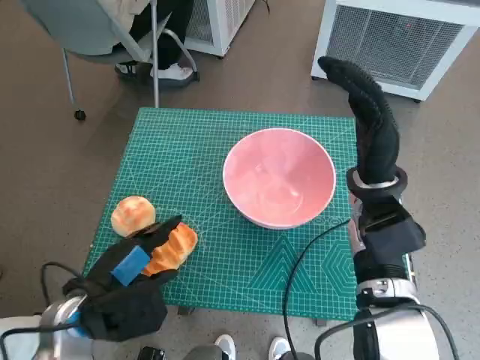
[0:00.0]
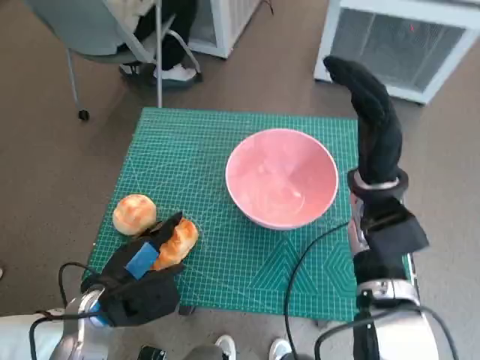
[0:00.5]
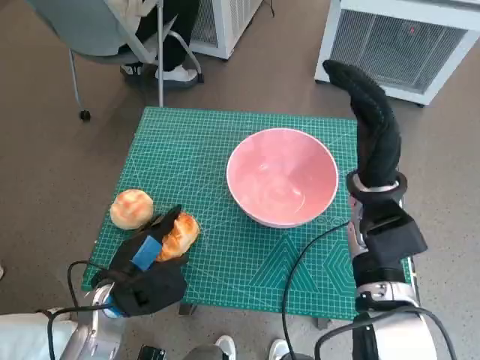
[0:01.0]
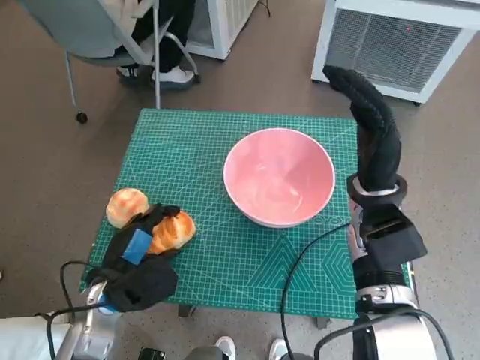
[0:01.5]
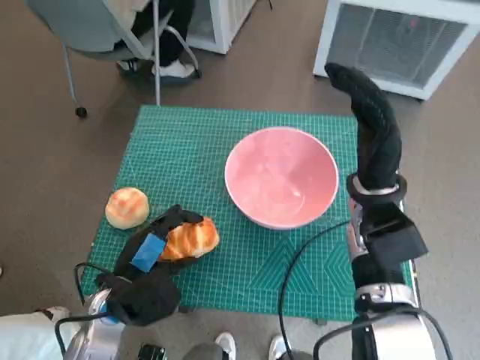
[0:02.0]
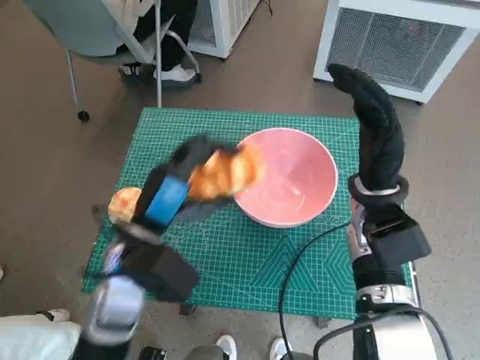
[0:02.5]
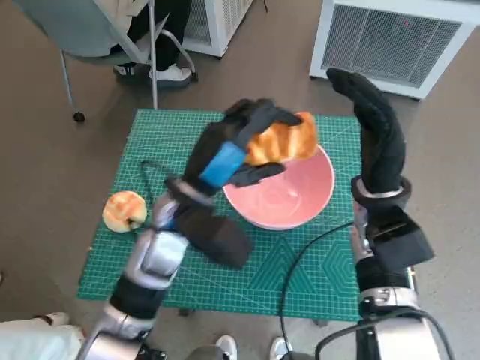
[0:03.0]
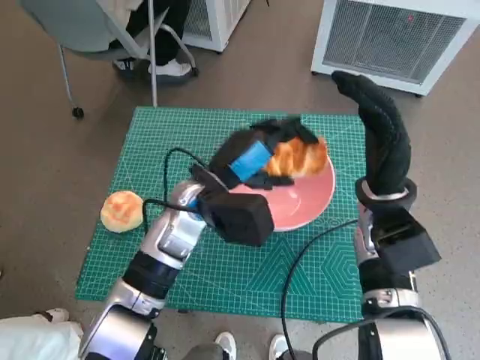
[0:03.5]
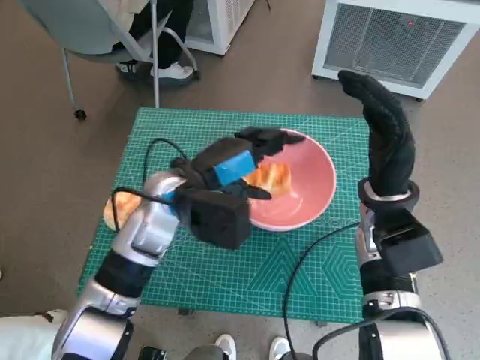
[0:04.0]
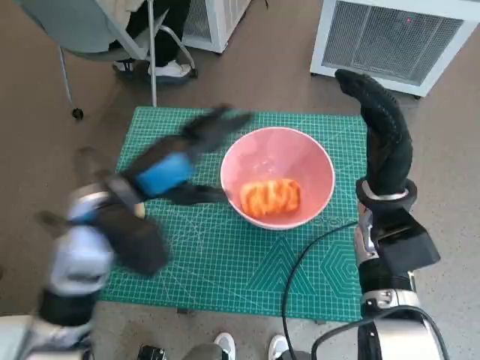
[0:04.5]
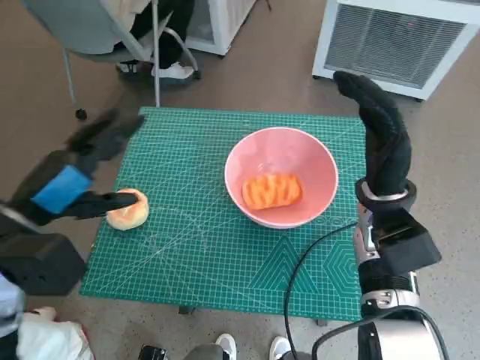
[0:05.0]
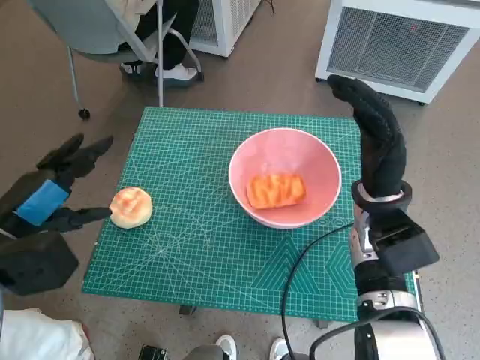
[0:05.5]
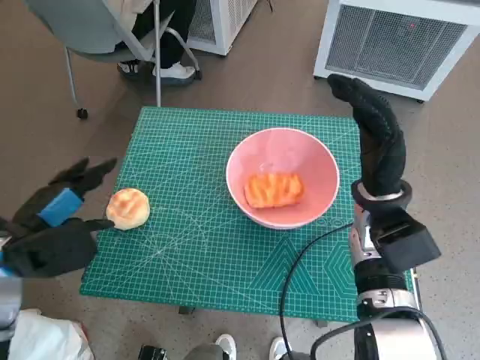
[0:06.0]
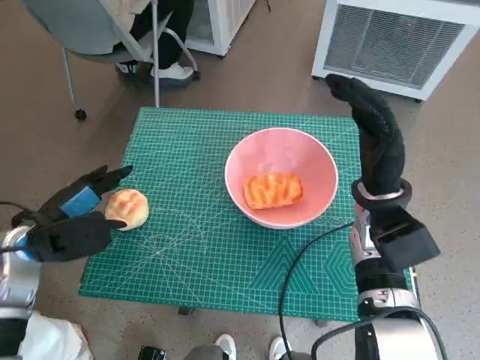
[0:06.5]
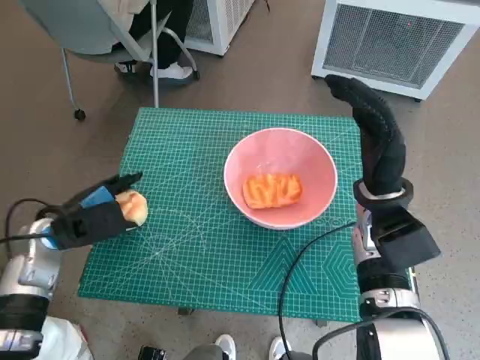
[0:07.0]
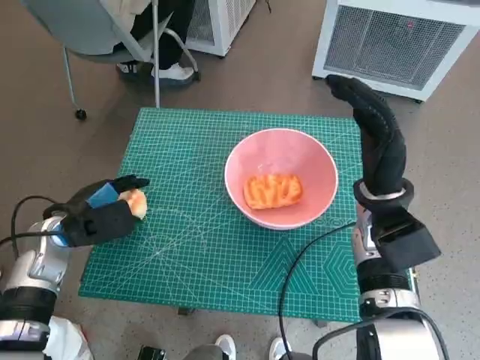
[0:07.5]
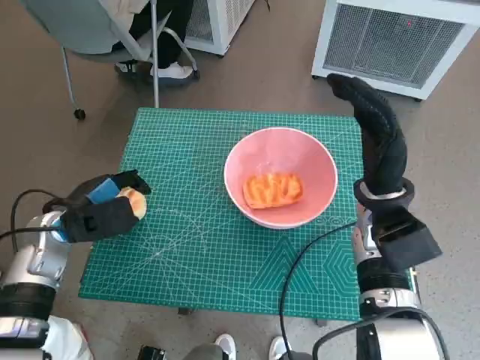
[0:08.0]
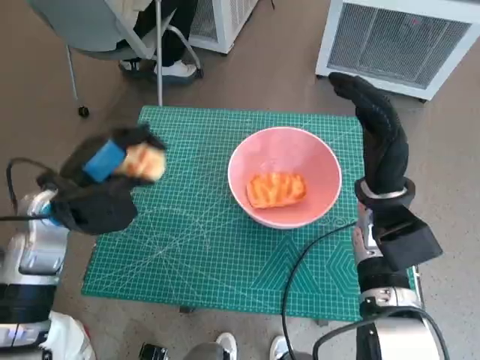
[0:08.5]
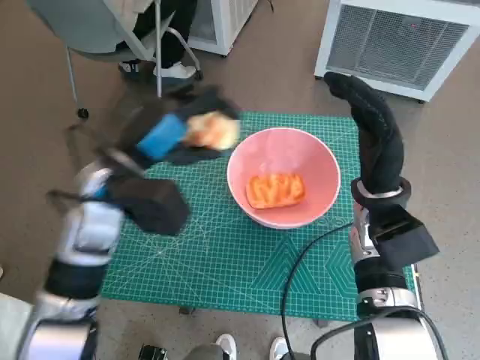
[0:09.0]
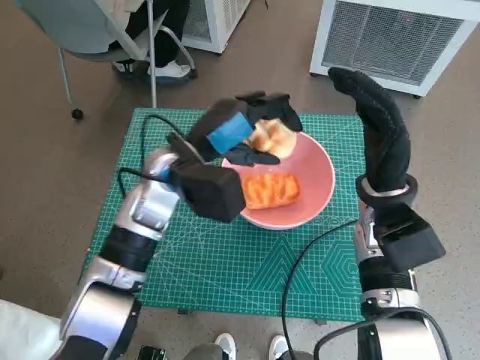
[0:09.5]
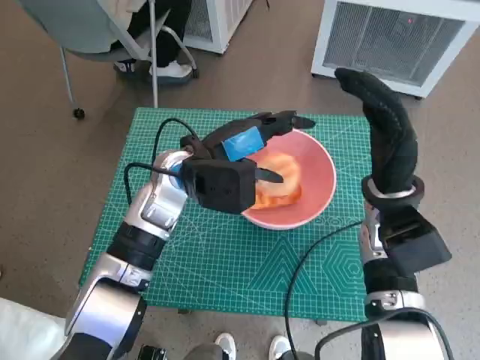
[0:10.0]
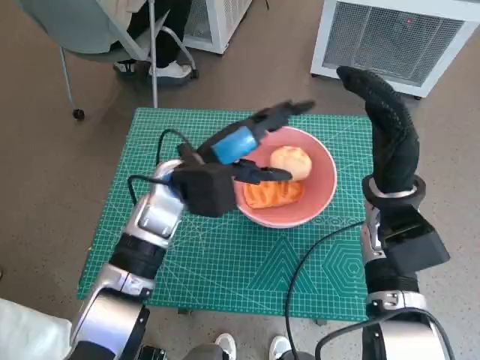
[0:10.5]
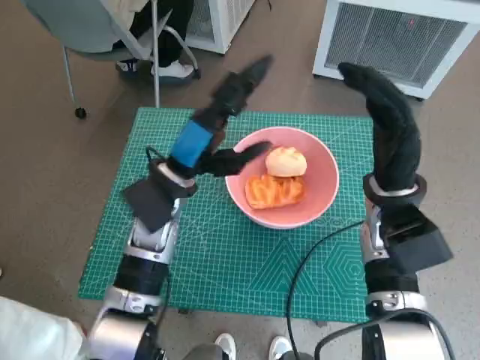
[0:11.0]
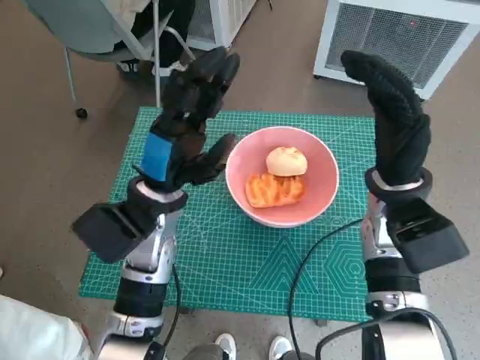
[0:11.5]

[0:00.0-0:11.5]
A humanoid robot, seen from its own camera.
Task of the whole recording: Push the bowl to the center of the table and put the bread into the bowl.
Step, 0:01.5 to 0:04.5: Place the long bread in pink bowl with left hand.
Step, 0:05.0 to 0:07.5: Grasp the round bread with left hand.
Step, 0:08.0 to 0:10.5: Place the round bread in pink bowl with left hand.
0:00.0 to 0:02.0: The left hand shifts by approximately 5 cm.
0:02.0 to 0:04.0: The left hand goes approximately 20 cm forward, upward and to the right.
0:04.0 to 0:06.0: The left hand is displaced to the left and backward by approximately 20 cm.
0:06.0 to 0:07.5: The left hand moves downward and forward, roughly 10 cm.
0:07.5 to 0:09.5: The left hand goes approximately 20 cm to the right and upward.
0:09.5 to 0:11.5: The left hand ends up approximately 5 cm from where it was.
